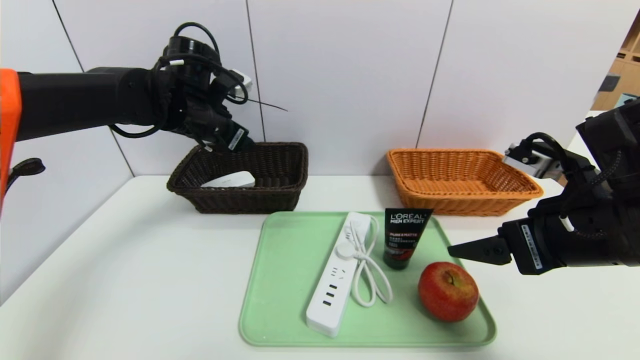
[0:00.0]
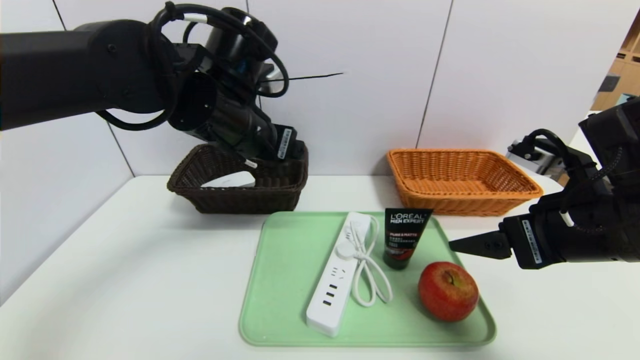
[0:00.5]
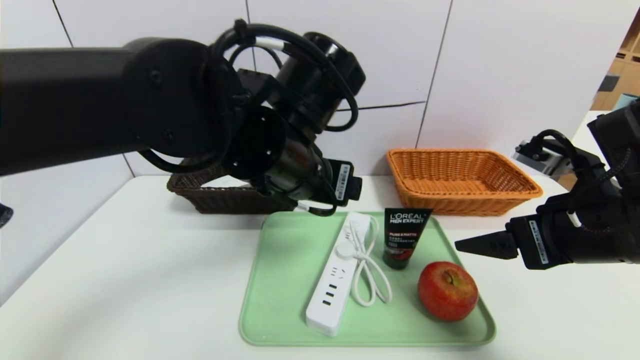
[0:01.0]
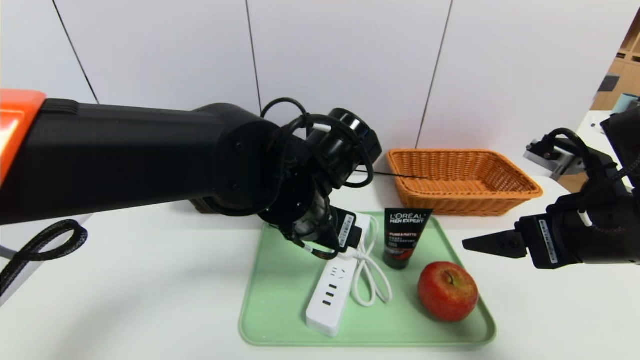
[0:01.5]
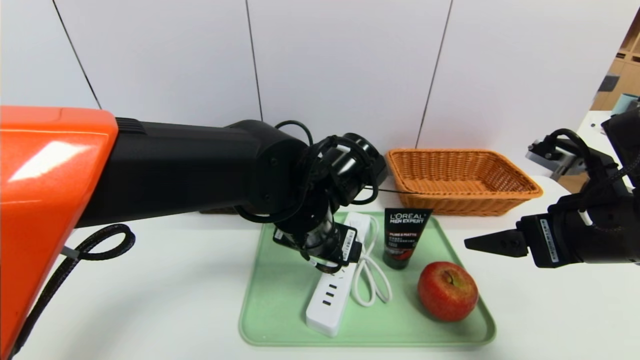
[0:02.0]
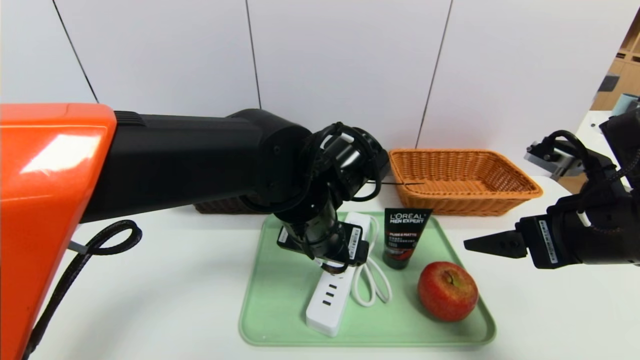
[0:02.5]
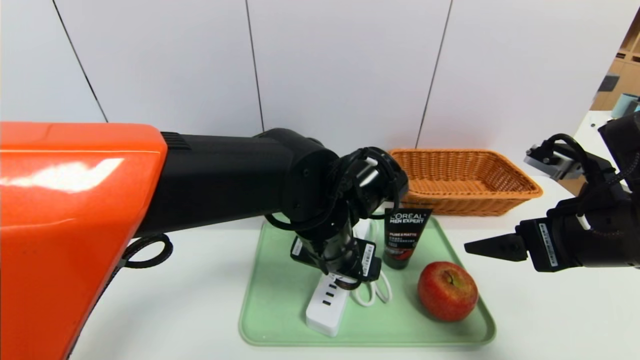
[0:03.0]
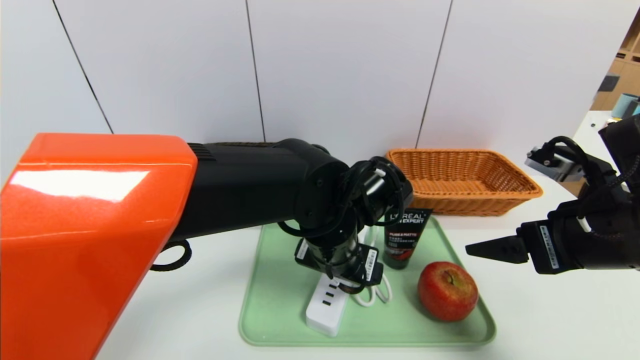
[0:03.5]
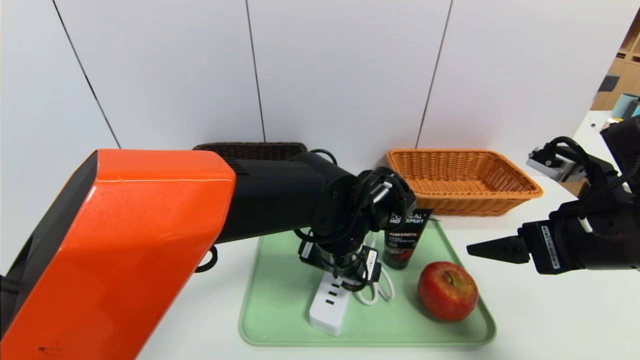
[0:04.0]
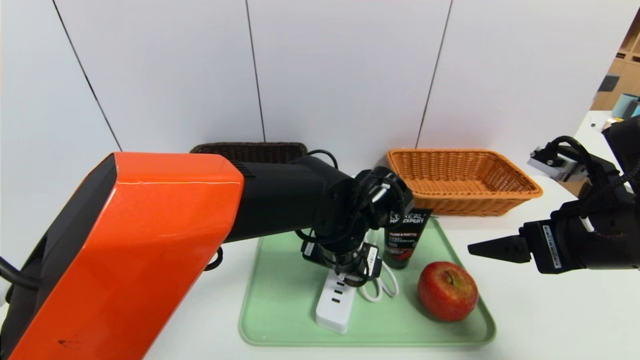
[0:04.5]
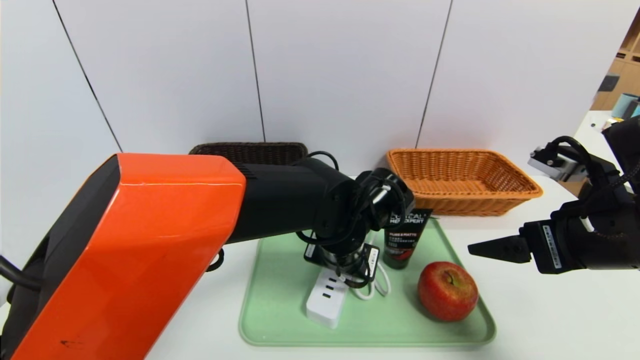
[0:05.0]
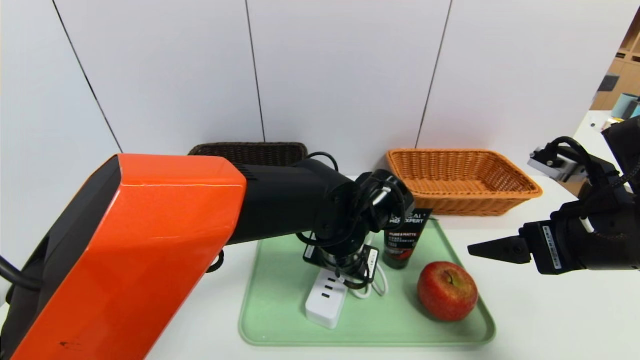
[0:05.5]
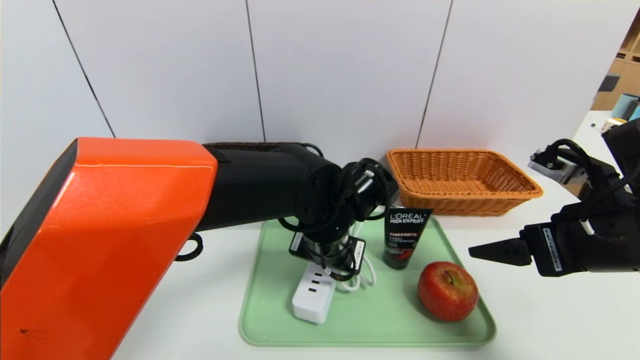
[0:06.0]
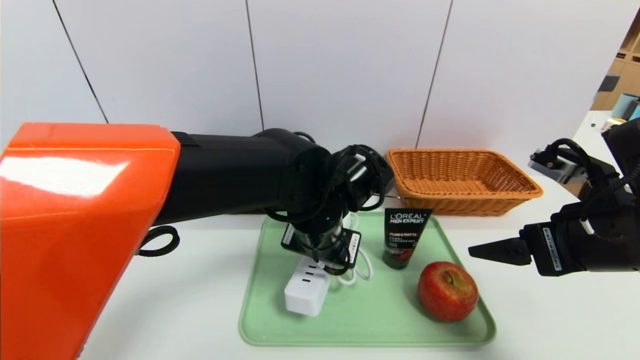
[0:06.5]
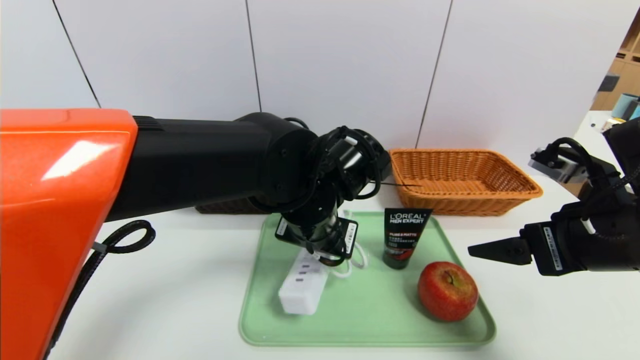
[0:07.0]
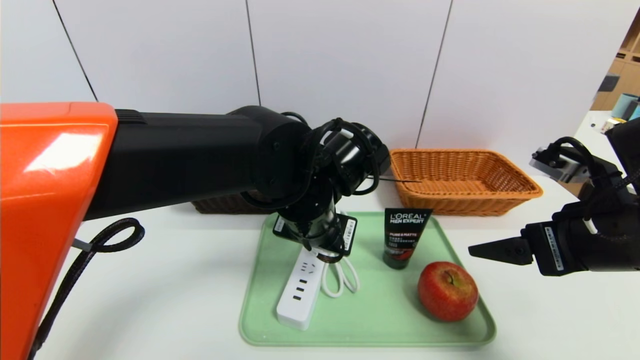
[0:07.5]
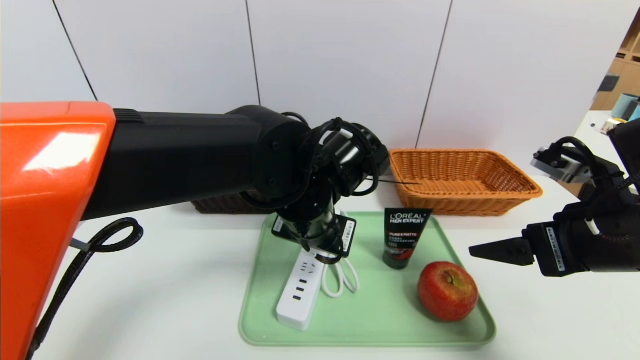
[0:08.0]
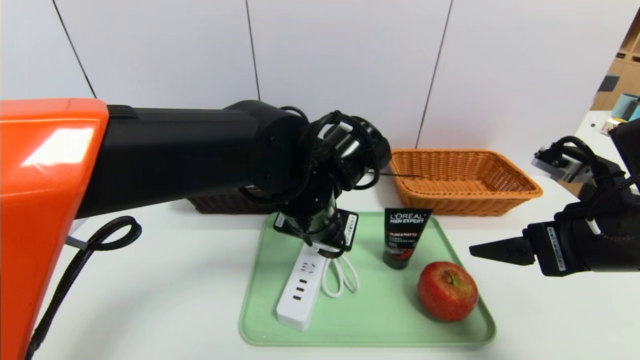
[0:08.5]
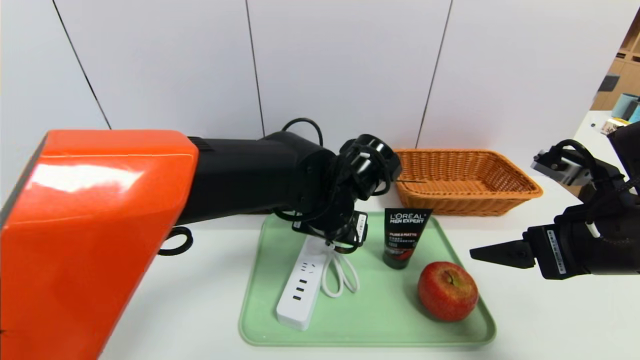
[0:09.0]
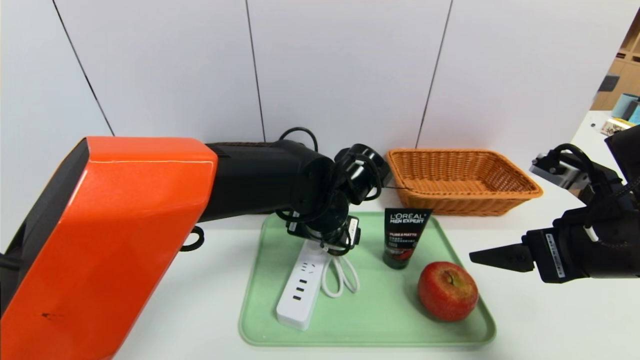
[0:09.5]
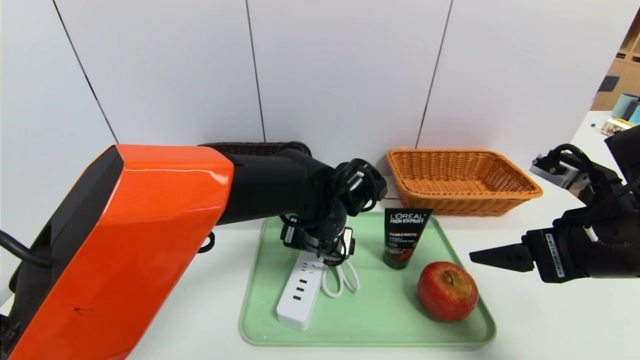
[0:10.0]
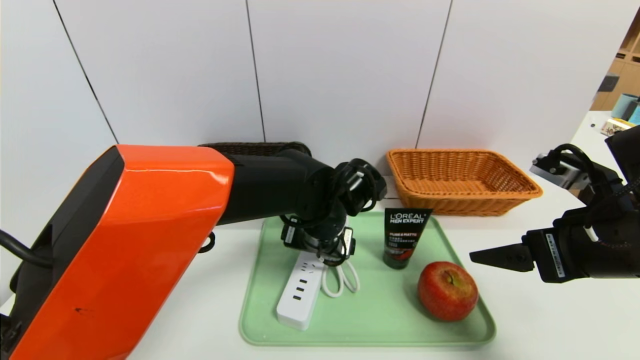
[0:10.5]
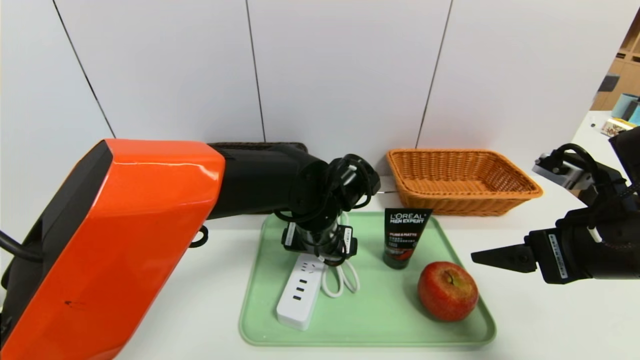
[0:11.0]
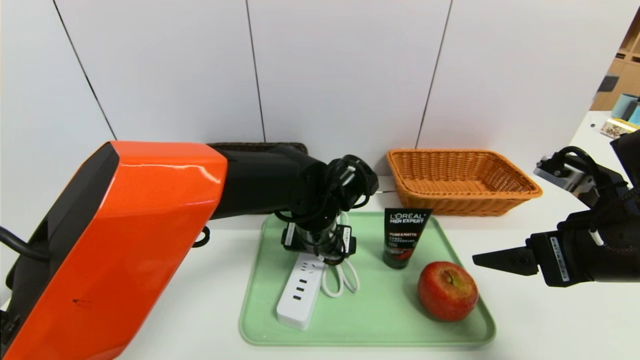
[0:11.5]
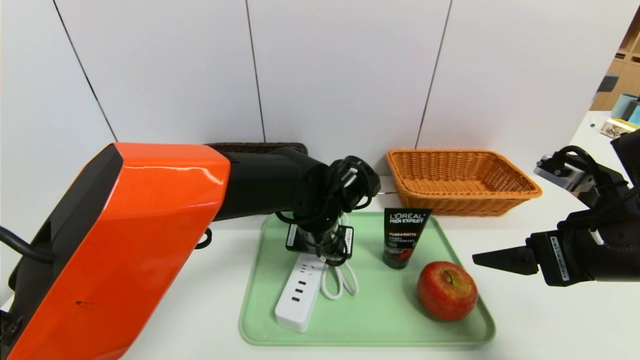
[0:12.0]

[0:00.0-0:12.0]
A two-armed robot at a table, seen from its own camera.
Task of the whole recording: place the food in the right basket with the right gripper, and place the non food items in the left basket with the left gripper.
0:00.0 to 0:02.0: The left gripper heads to the right, backward and downward, covering approximately 25 cm.
0:02.0 to 0:04.0: The left gripper ends up about 5 cm from where it was.
0:04.0 to 0:06.0: The left gripper closes up.
0:06.0 to 0:08.0: The left gripper ends up some 5 cm from where it was.
0:08.0 to 0:10.0: The left gripper moves downward, some 5 cm, and opens up.
0:10.0 to 0:12.0: The grippers make only small movements.

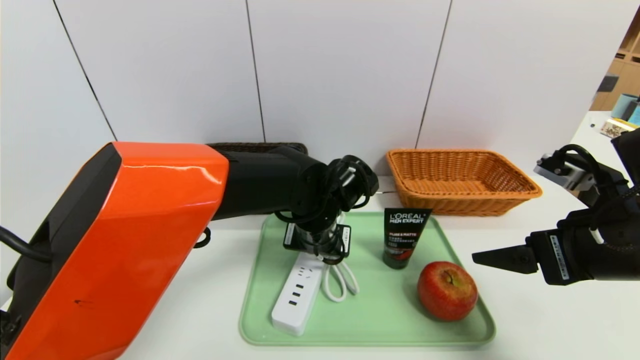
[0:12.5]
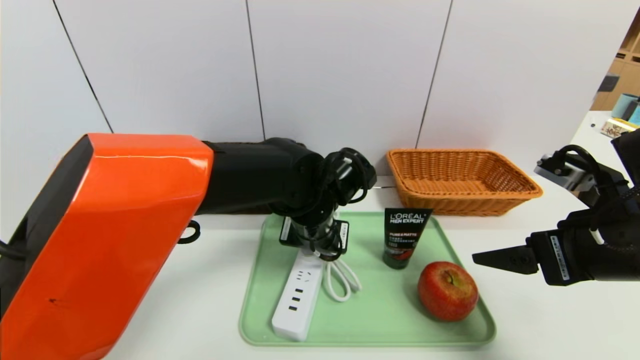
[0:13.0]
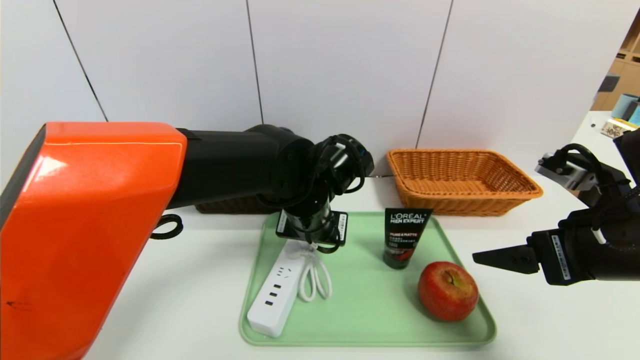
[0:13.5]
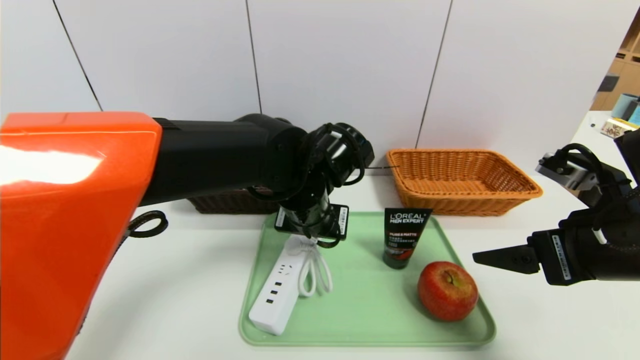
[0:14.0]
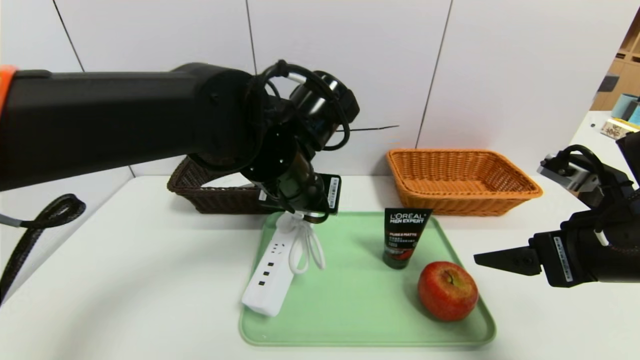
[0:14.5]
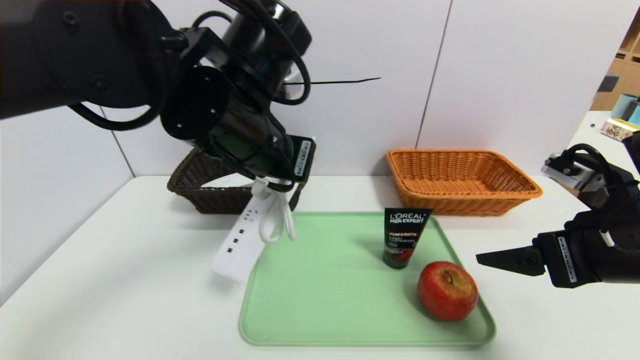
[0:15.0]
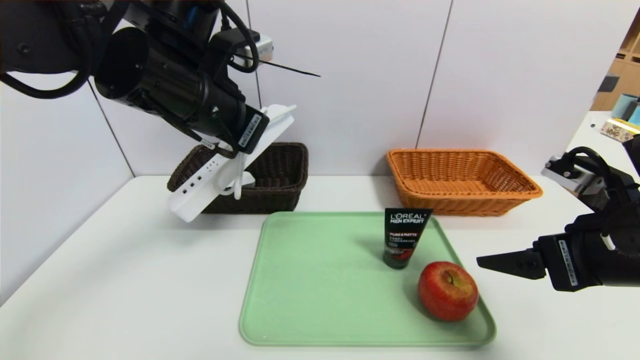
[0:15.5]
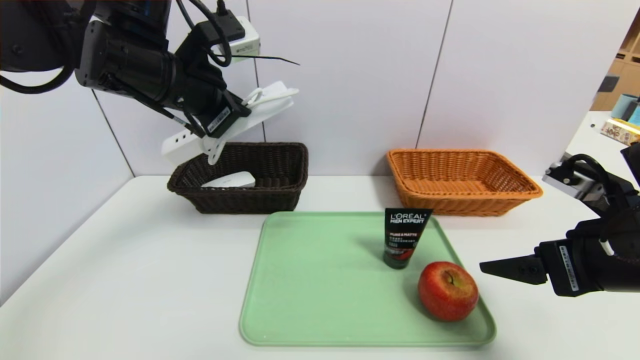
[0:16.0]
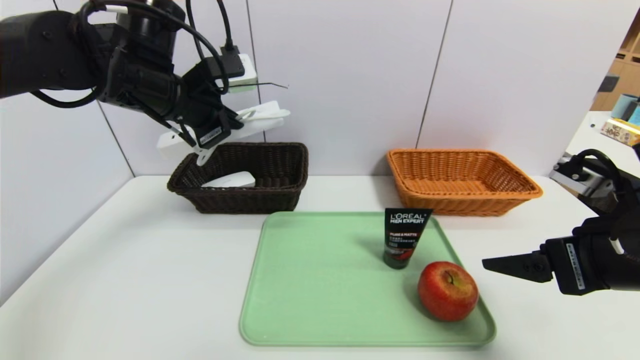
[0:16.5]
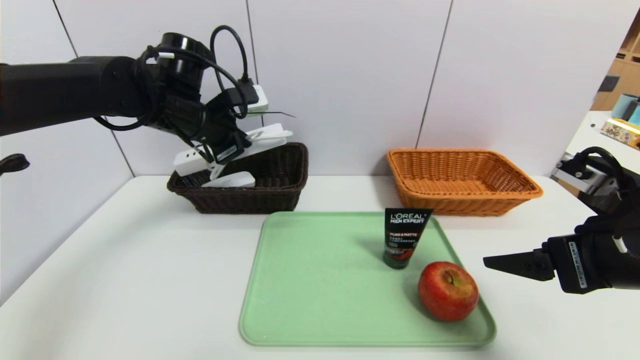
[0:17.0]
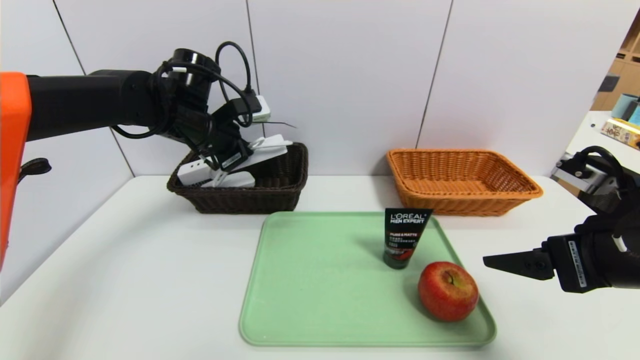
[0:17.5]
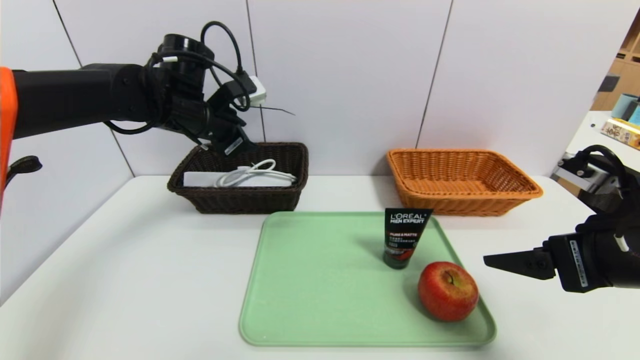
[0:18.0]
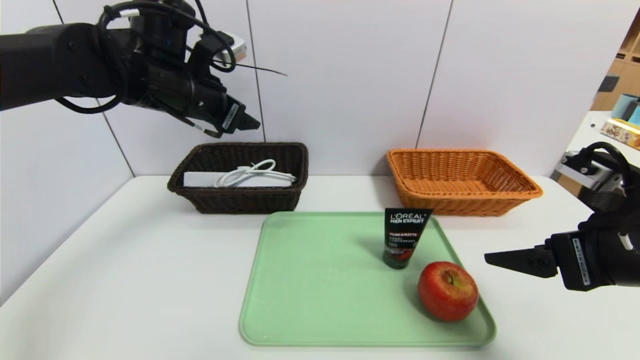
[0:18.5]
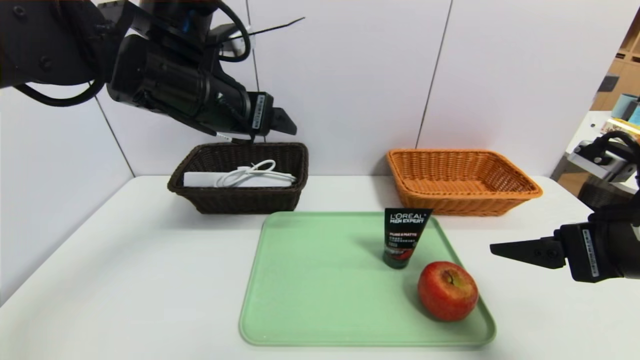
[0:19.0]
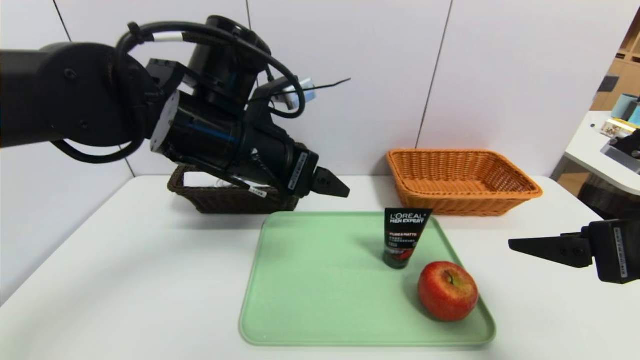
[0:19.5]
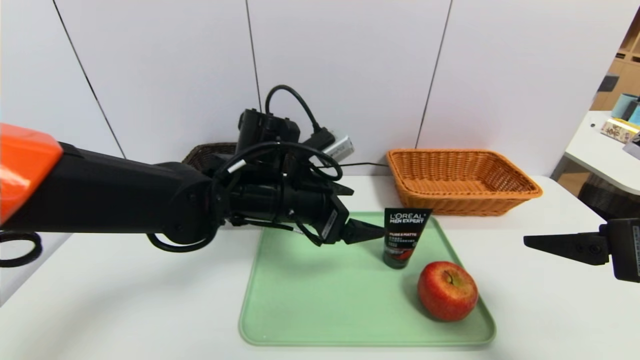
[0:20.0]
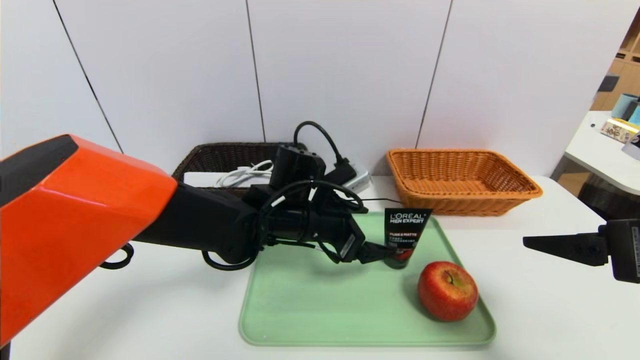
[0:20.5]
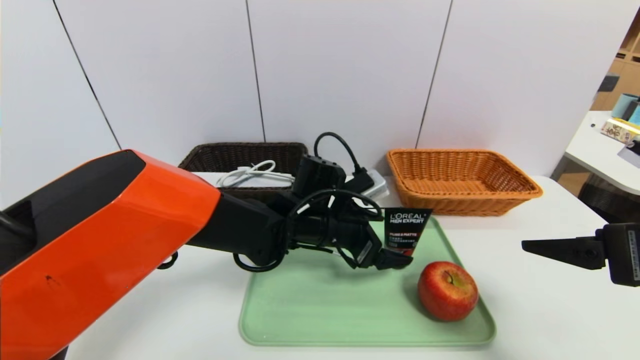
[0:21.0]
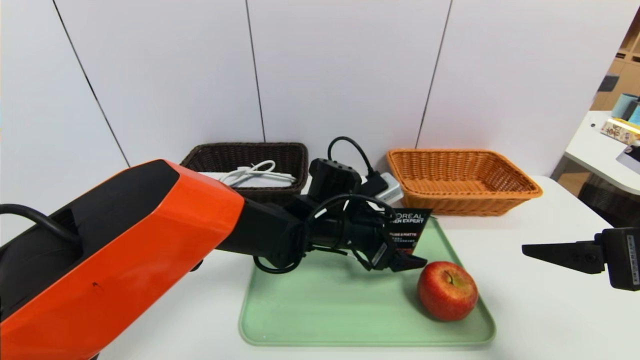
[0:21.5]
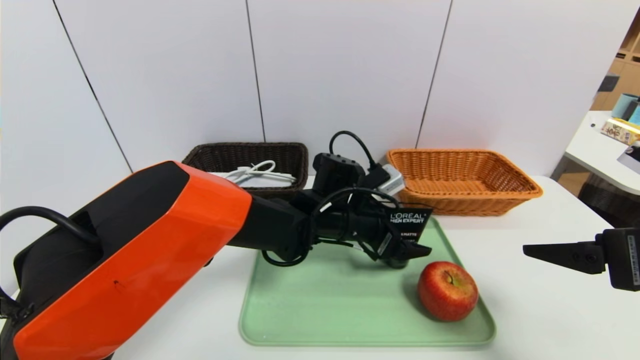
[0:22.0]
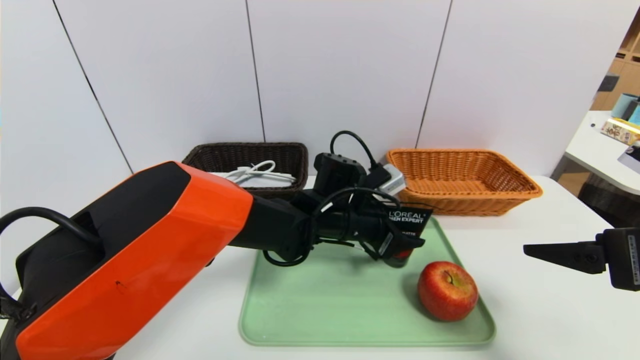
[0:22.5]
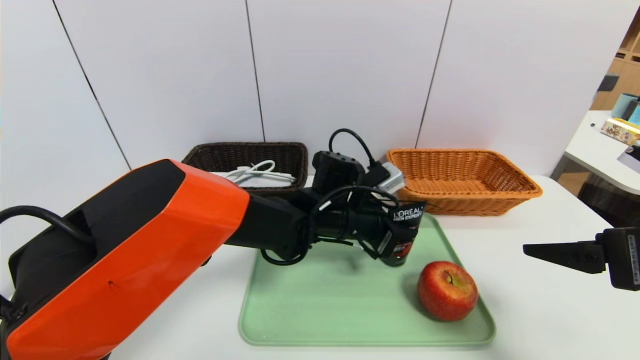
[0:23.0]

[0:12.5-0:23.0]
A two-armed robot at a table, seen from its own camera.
Task of the whole recording: place the food in the right basket with the right gripper, and place the non food items in the left basket with the left gripper.
Step, 0:12.5 to 0:18.0: Grasp the power strip and put it in the left basket.
0:12.5 to 0:14.5: The left gripper is displaced upward by roughly 10 cm, and closes up.
0:14.5 to 0:16.5: The left gripper heads to the left and forward, covering some 15 cm.
0:16.5 to 0:19.0: The left gripper travels to the right and backward by some 10 cm, and opens up.
0:19.0 to 0:21.0: The left gripper shifts some 25 cm downward and to the right.
0:21.0 to 0:23.0: The left gripper closes.
